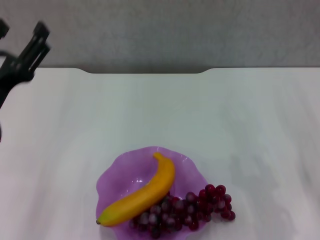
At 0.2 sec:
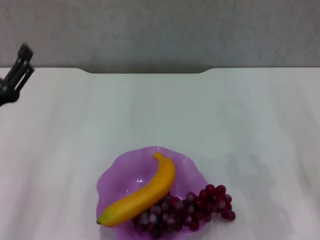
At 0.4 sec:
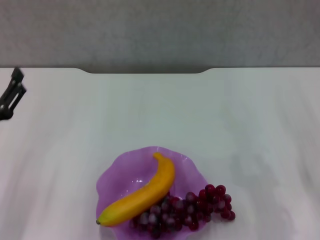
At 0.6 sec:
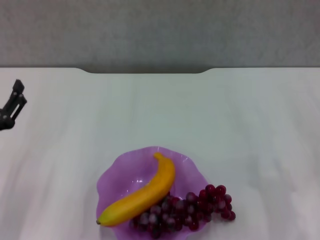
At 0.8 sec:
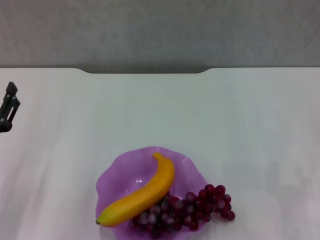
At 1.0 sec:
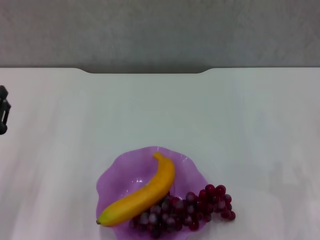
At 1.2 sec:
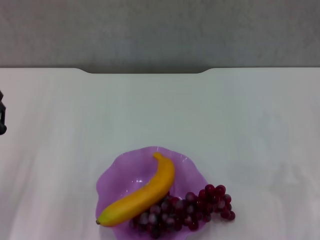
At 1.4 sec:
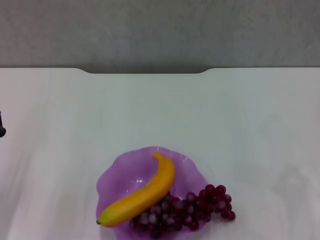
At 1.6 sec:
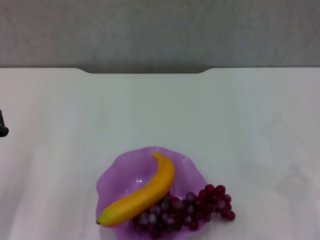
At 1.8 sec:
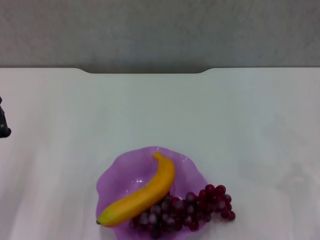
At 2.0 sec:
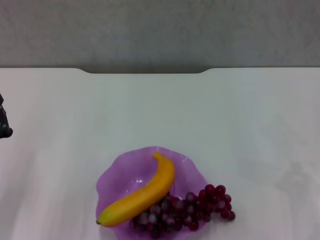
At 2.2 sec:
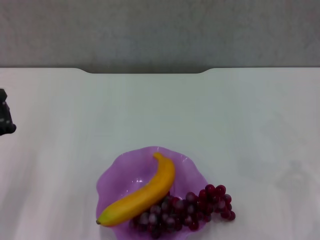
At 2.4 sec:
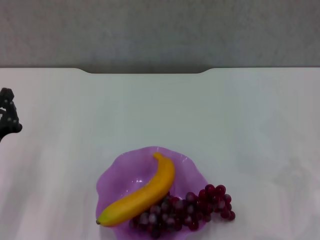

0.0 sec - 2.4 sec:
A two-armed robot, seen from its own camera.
0.0 sec - 1.2 sec: The left gripper heads downward and to the left, covering approximately 10 cm, and closes its fingers.
1.2 sec - 2.4 sec: The left gripper closes.
